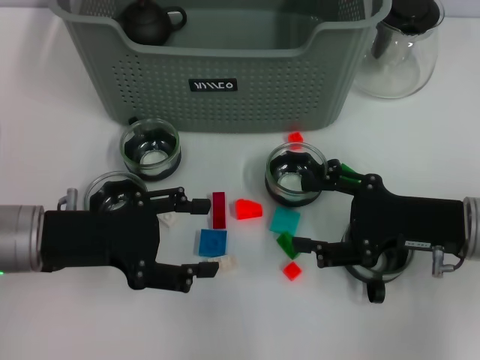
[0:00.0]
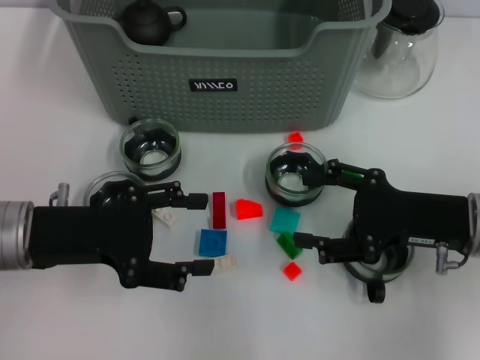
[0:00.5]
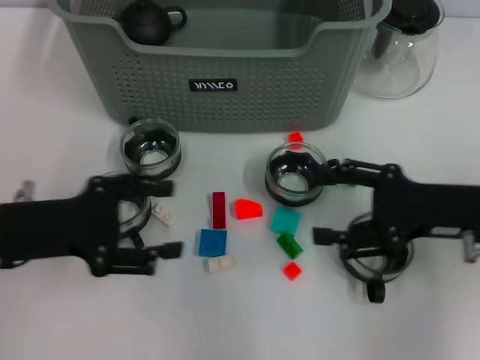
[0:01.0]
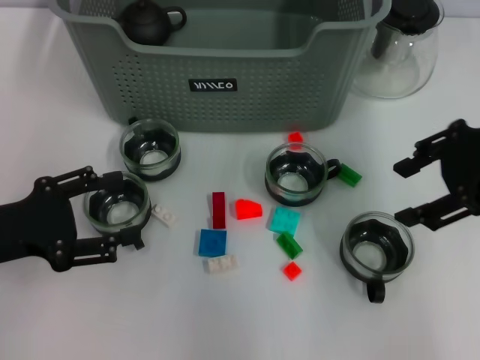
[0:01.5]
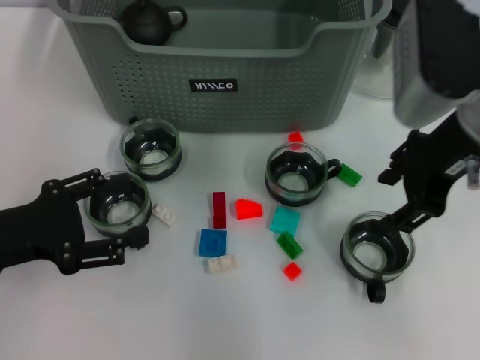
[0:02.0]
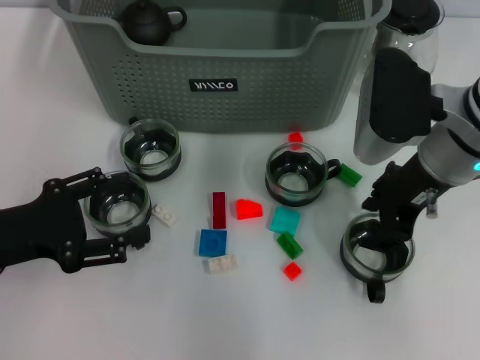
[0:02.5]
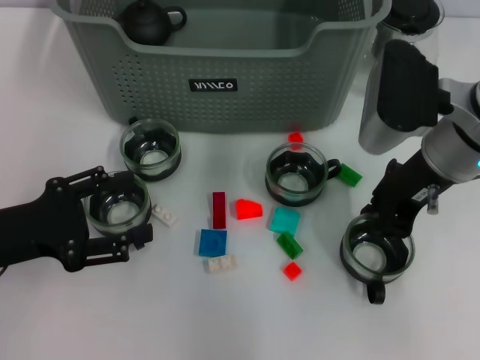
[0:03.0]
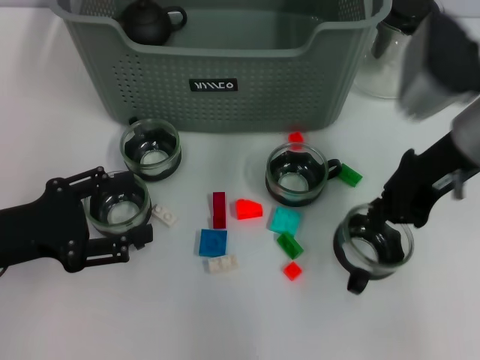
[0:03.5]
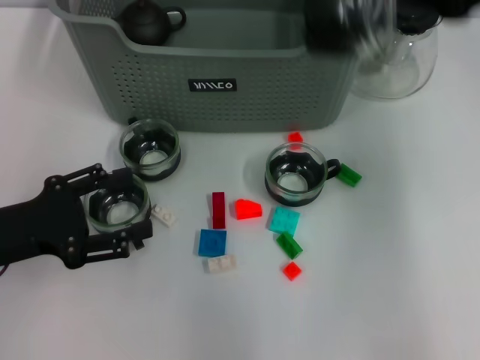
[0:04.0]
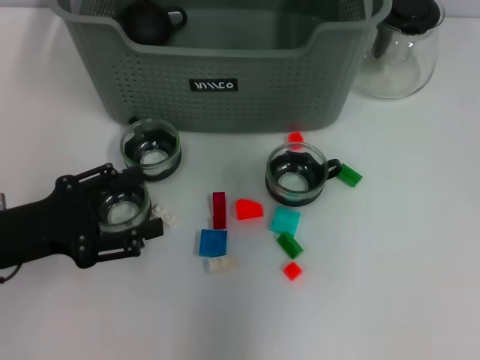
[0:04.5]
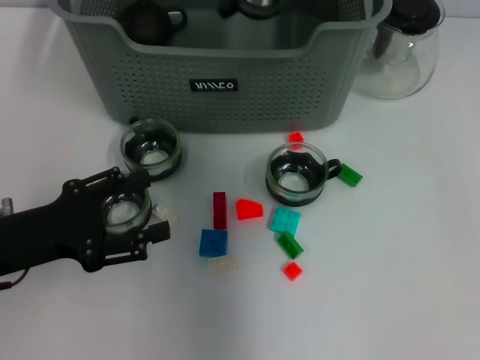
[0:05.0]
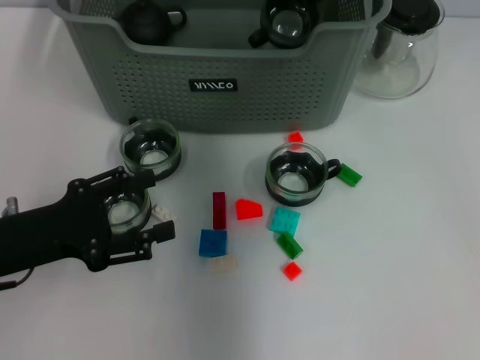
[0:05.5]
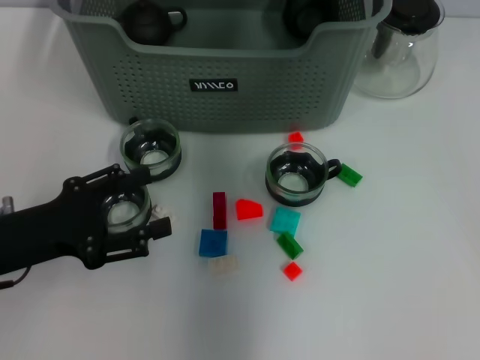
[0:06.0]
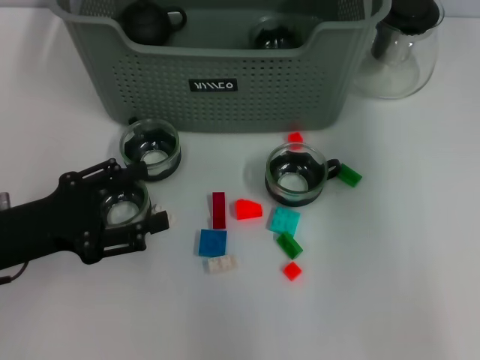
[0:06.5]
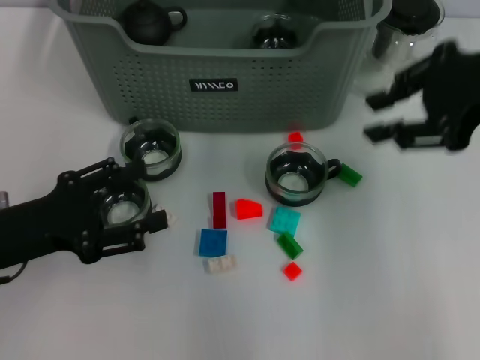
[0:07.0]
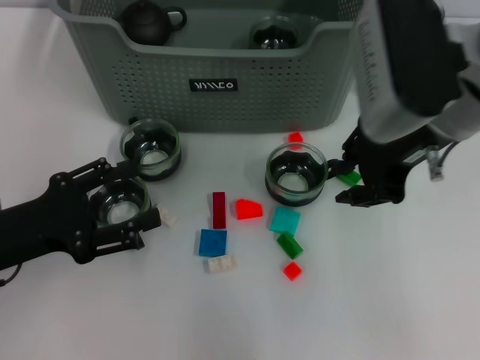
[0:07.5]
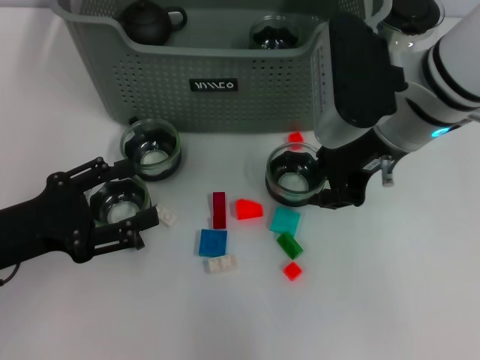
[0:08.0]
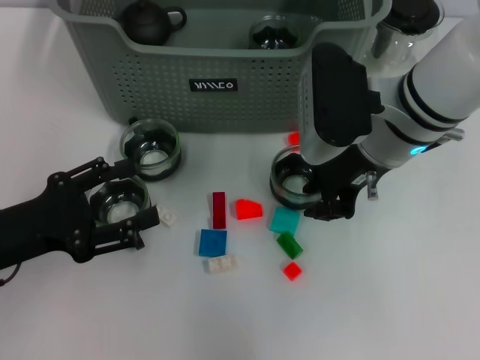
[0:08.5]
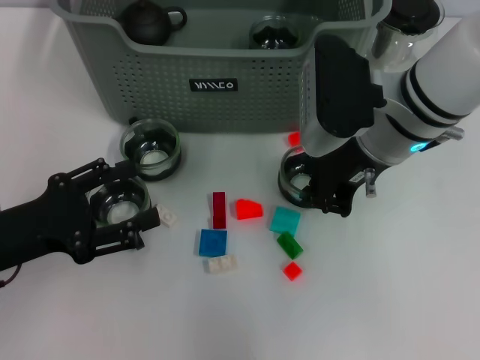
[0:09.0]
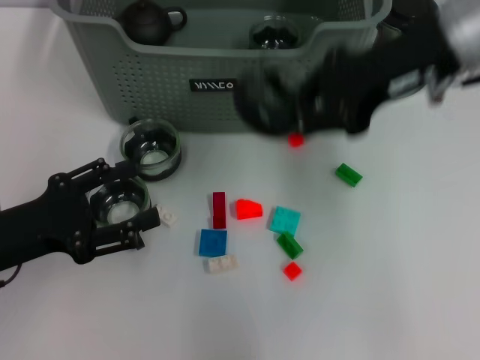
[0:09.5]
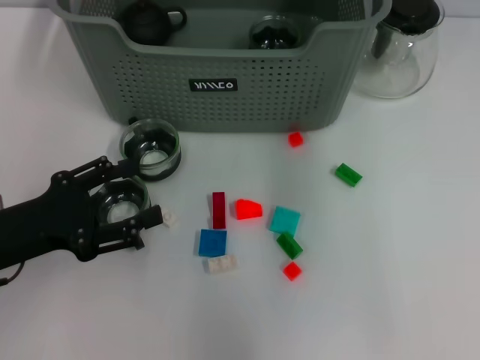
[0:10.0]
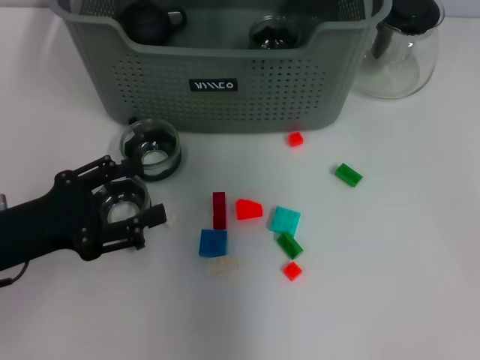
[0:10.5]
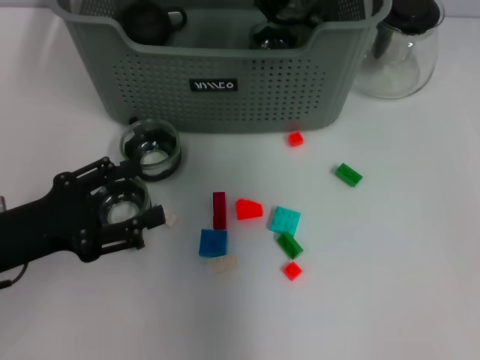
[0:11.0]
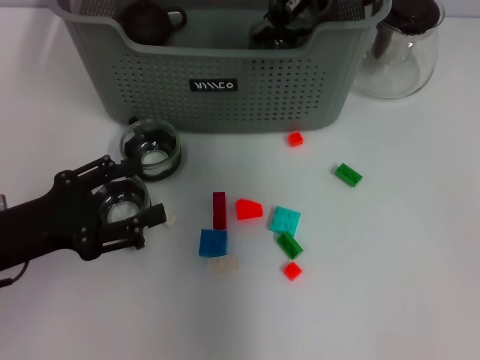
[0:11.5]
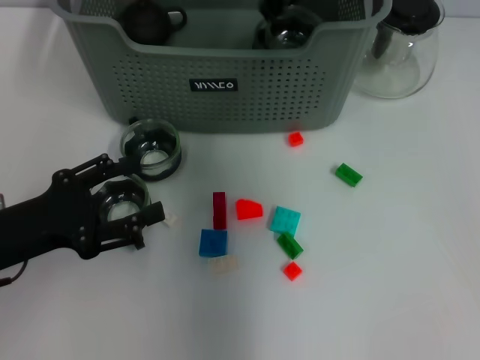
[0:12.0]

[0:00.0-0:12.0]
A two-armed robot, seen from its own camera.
Task of the whole recording: pick up the teacup on the table and place it into the storage bin, pick up the block on the table and place it into the storage bin.
Step, 0:00.0 to 0:03.0: Grasp the cup with right gripper.
Step, 0:03.5 to 0:05.5: Place the cup in the storage box with right gripper.
Step, 0:06.0 to 0:08.5: Grasp the cup with right gripper.
Step, 0:09.0 to 0:12.0: Place the cup in the storage box with right gripper.
0:00.0 to 0:02.0: The right gripper shifts about 15 cm upward, to the left and forward; the left gripper is displaced to the left by approximately 5 cm.
0:02.0 to 0:04.0: The right gripper goes roughly 10 cm to the right and upward, and closes.
0:04.0 to 0:06.0: The right gripper is displaced to the left and forward by about 20 cm.
0:06.0 to 0:08.0: The right gripper goes approximately 15 cm backward and downward.
0:08.0 to 0:10.0: The right gripper is displaced upward and forward by roughly 15 cm.
0:10.0 to 0:12.0: The right gripper travels to the left, downward and forward by about 10 cm.

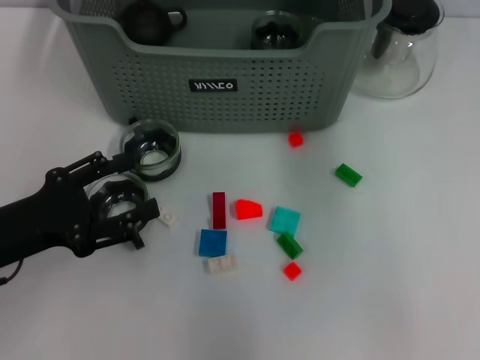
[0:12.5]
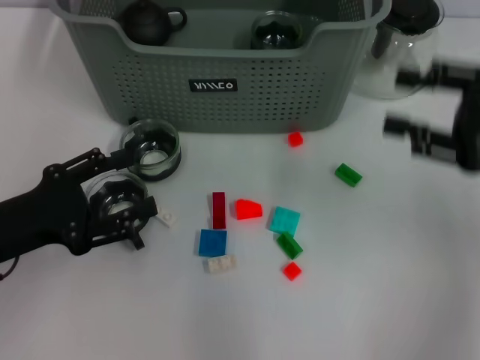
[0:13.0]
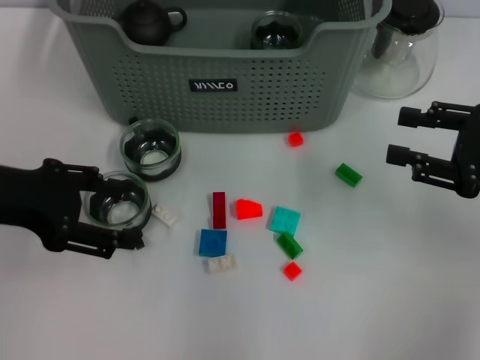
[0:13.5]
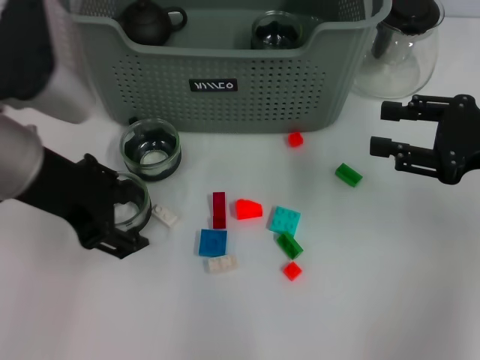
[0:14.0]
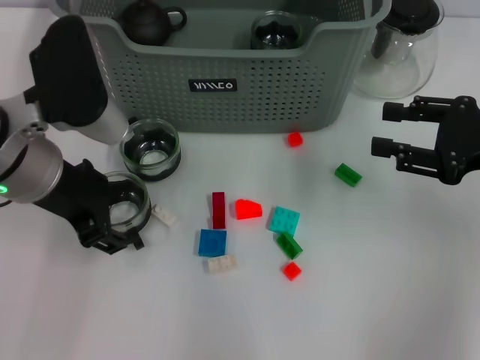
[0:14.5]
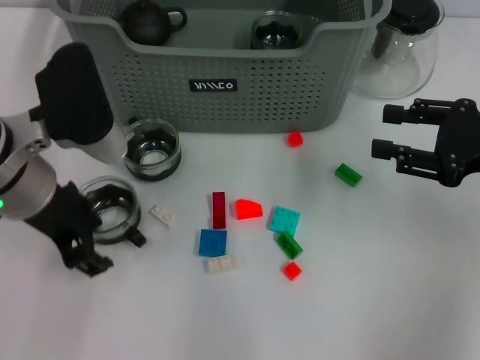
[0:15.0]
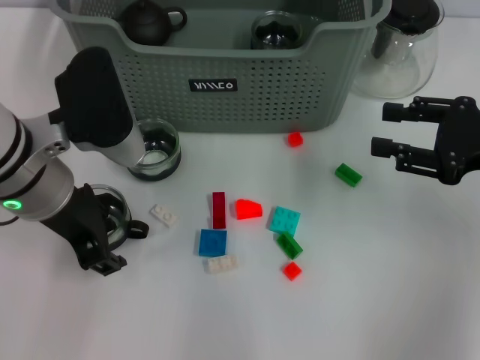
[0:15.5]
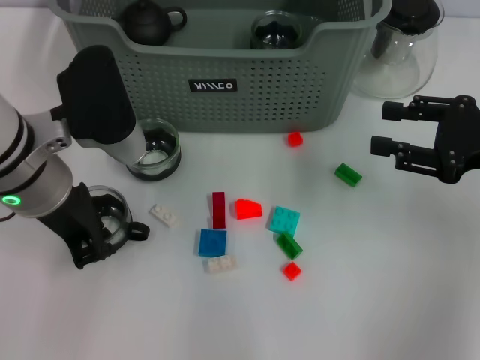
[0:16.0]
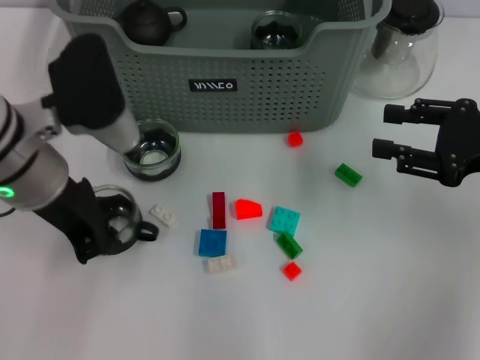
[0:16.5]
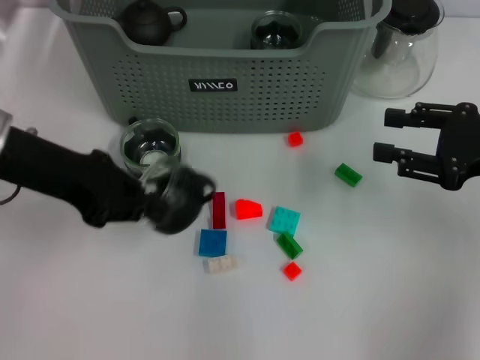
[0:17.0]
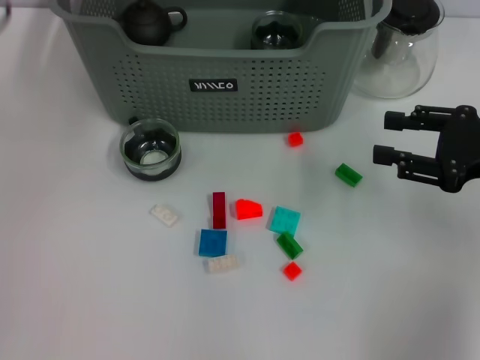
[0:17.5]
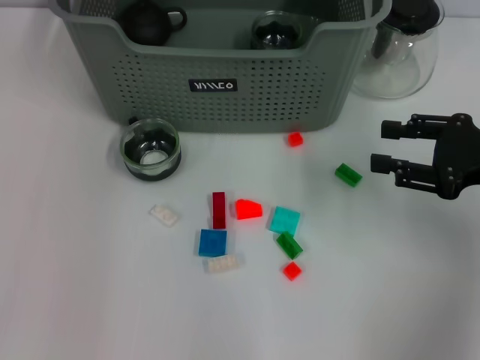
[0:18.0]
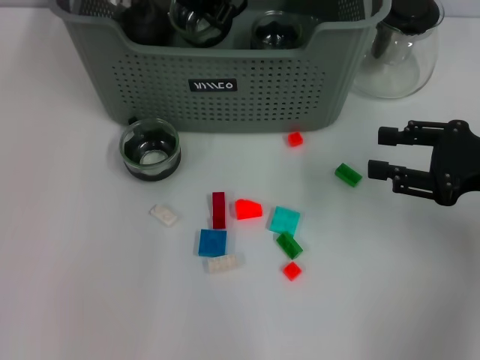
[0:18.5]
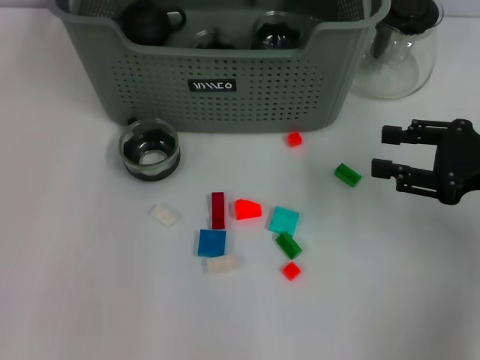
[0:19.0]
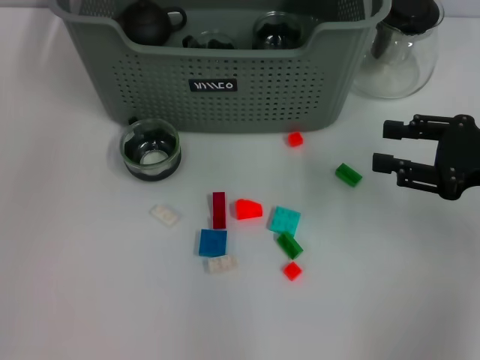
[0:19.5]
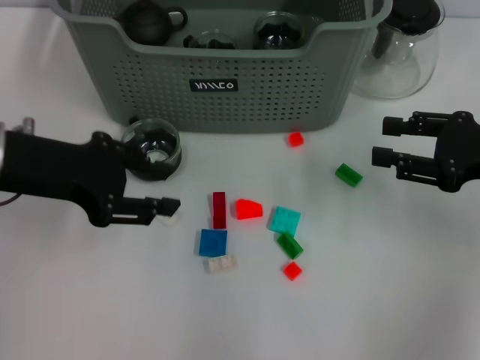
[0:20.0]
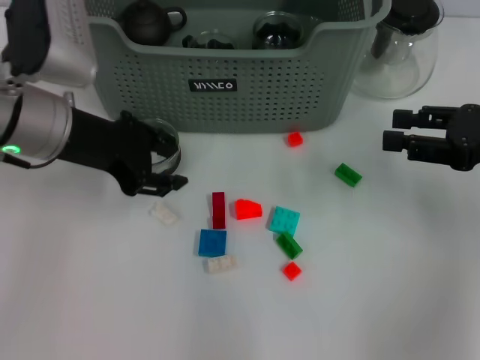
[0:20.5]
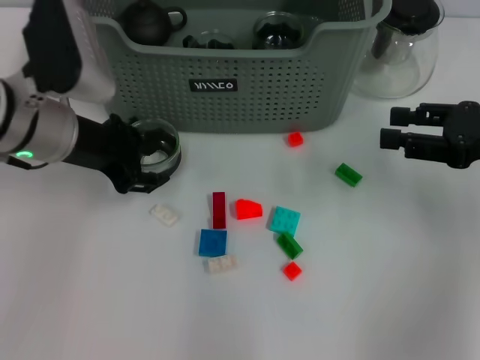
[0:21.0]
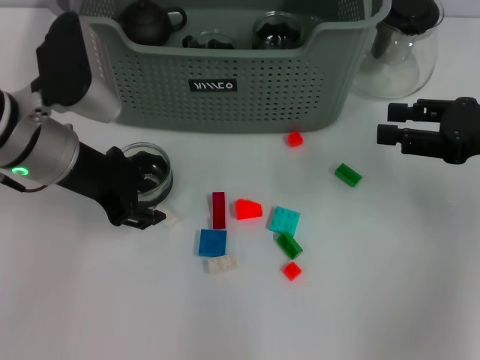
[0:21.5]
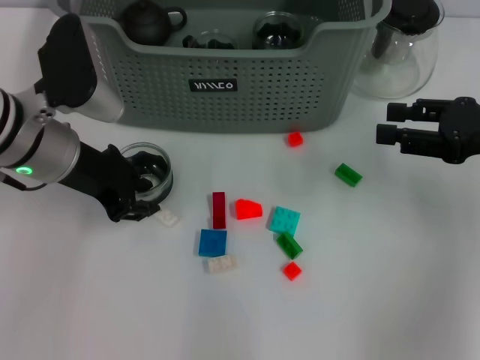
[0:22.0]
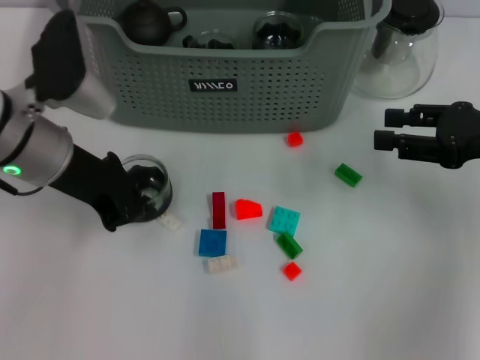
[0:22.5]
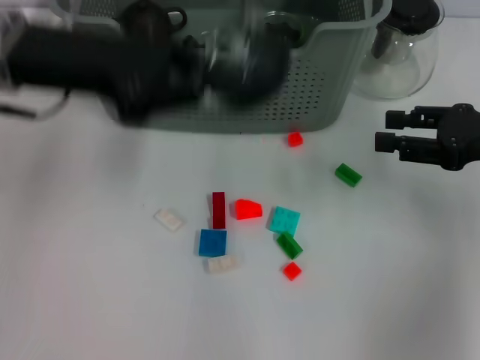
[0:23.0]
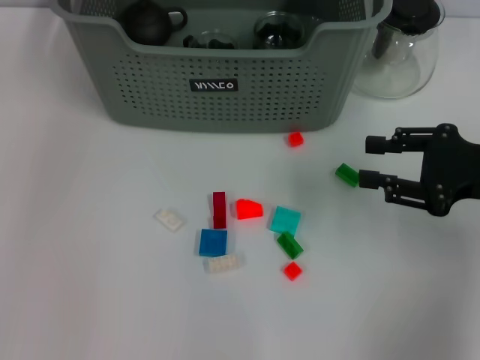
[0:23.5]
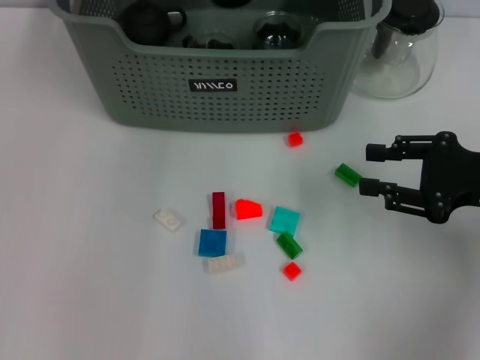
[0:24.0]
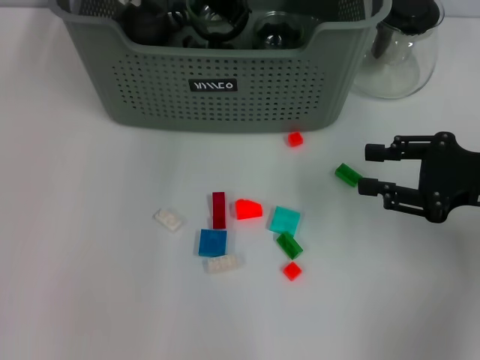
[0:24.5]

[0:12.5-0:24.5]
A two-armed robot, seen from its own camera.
Task of the whole recording: pick up the teacup on the table and place it into the storage bin, pick up the block on the table and place it into the storage bin.
Step, 0:12.5 to 0:16.0: Grasp the cup with left gripper.
Step, 0:16.5 to 0:18.5: Place the cup in the storage box with left gripper.
Step, 0:19.0 to 0:22.0: Grasp the cup with left gripper.
0:12.5 to 0:14.5: The right gripper heads downward, to the right and backward, covering some 25 cm; the left gripper is displaced upward, to the right and forward by roughly 15 cm.
0:14.5 to 0:16.5: The left gripper closes its fingers.
0:16.5 to 0:18.5: The left gripper travels forward and to the right by some 20 cm.
0:18.5 to 0:20.5: The left gripper heads backward and to the left, covering some 20 cm, and opens its fingers.
0:20.5 to 0:22.5: The left gripper closes.
0:22.5 to 0:24.5: The left gripper moves forward, to the right and upward, some 20 cm.

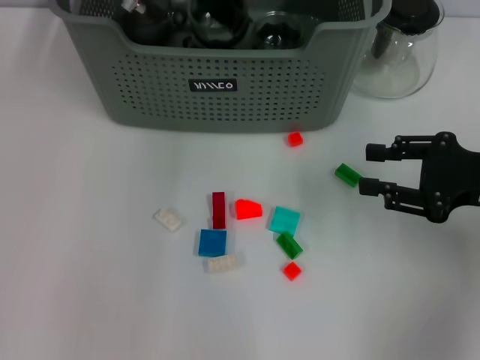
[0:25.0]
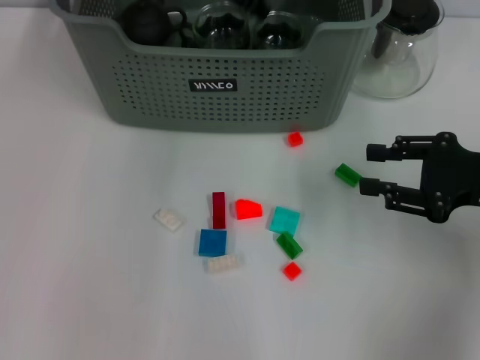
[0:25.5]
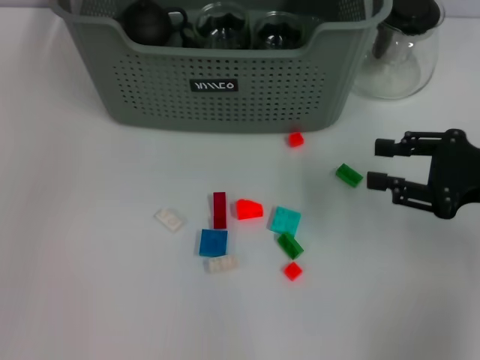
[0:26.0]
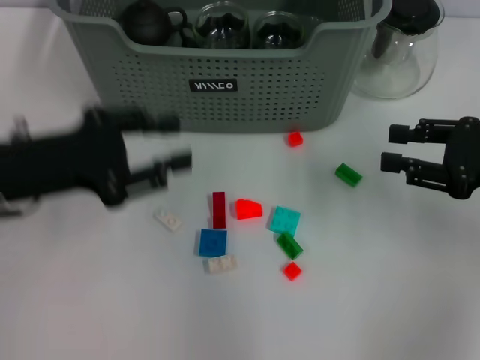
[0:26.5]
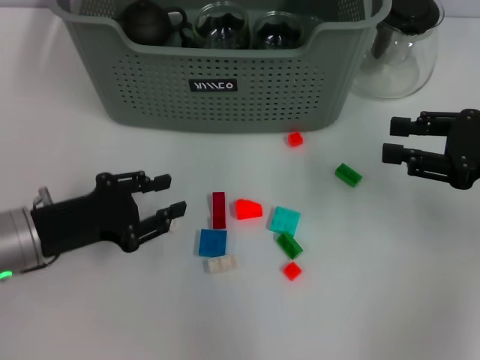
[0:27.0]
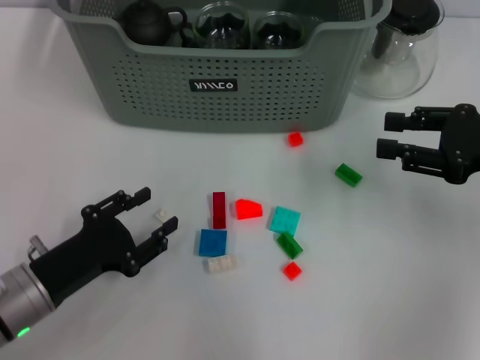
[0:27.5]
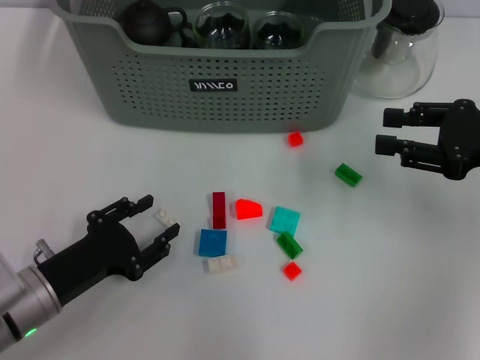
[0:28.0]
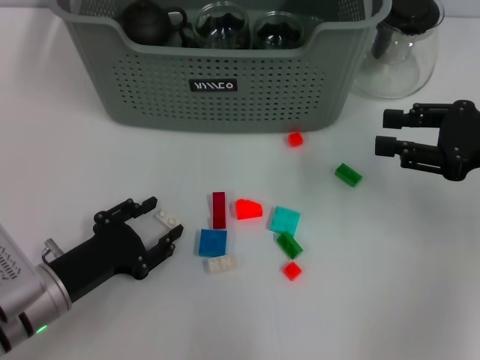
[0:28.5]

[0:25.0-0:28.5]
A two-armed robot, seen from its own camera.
Task of the whole recording: pick up the teacup on the table and place it into the storage bin, pick up the block on the table and place it into the storage bin.
0:25.0 to 0:27.0: The left gripper heads backward, to the left and downward, covering some 30 cm, and opens up.
0:27.0 to 0:28.5: The left gripper moves downward, roughly 5 cm.
